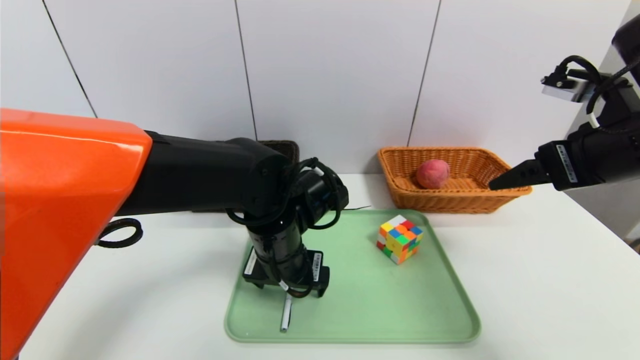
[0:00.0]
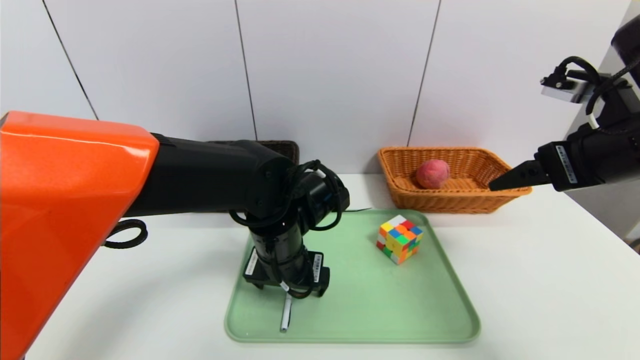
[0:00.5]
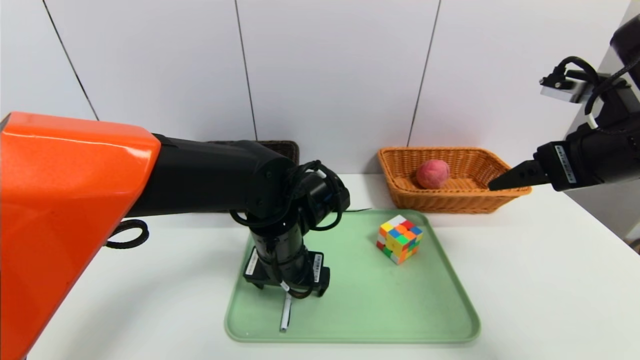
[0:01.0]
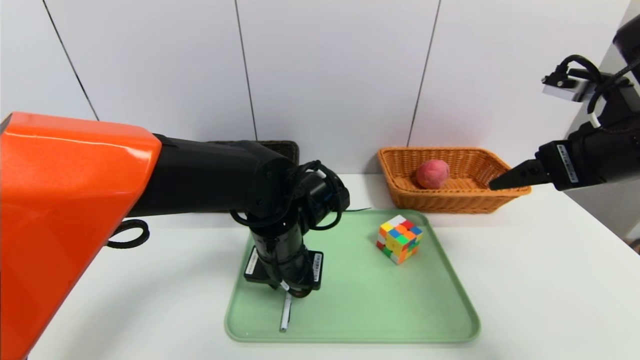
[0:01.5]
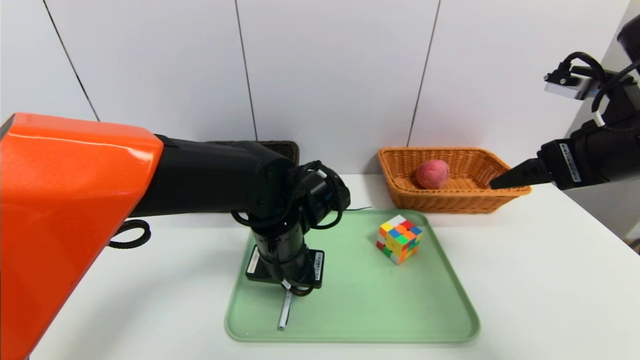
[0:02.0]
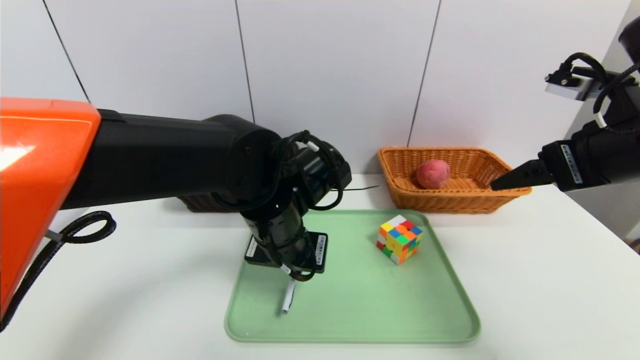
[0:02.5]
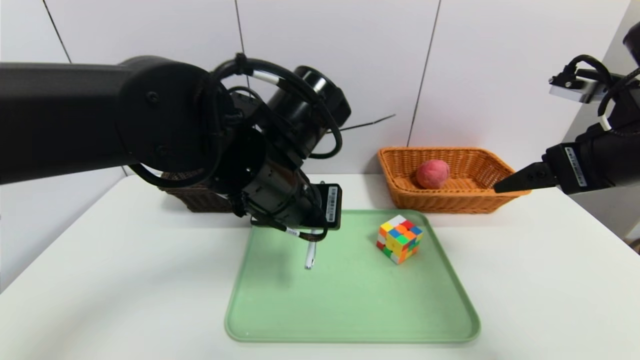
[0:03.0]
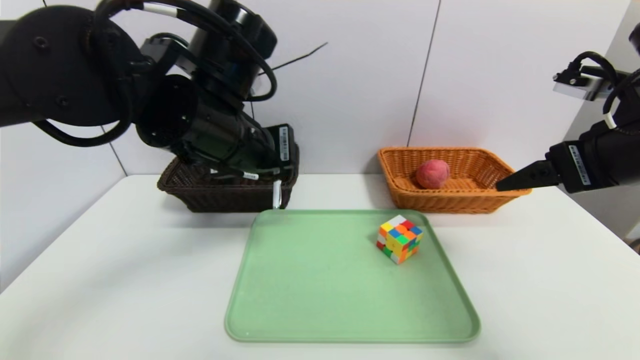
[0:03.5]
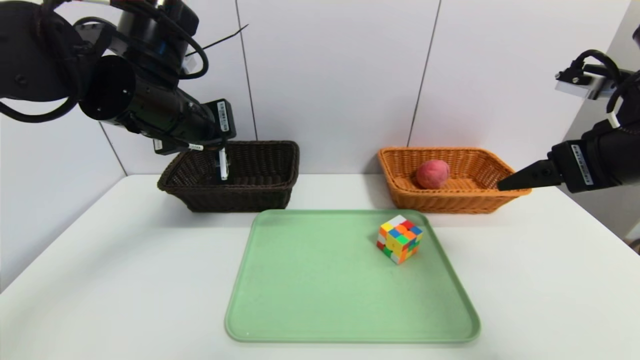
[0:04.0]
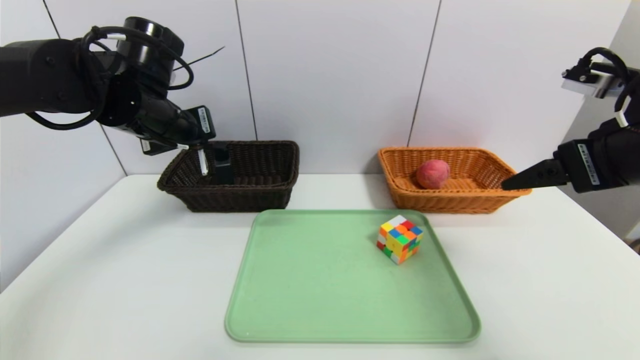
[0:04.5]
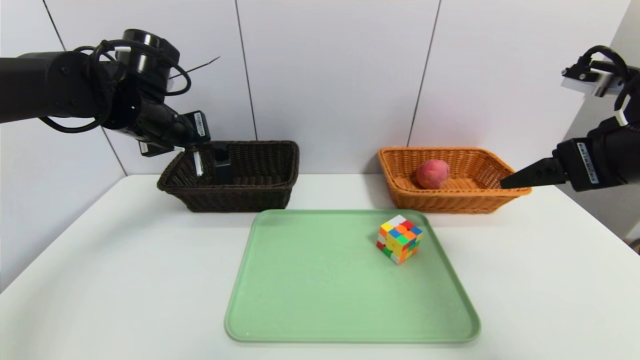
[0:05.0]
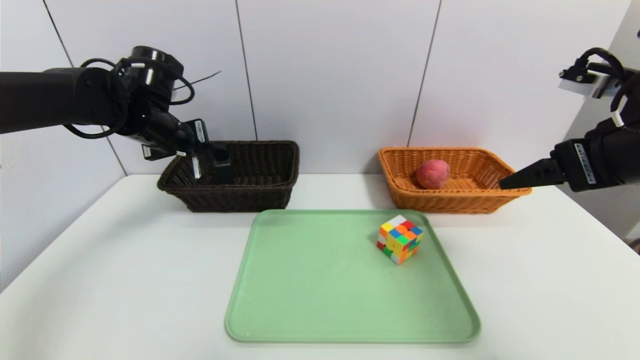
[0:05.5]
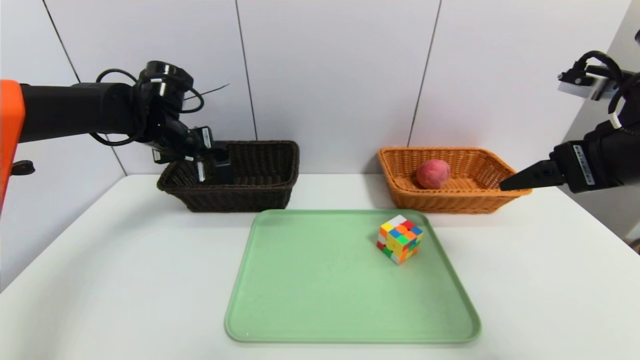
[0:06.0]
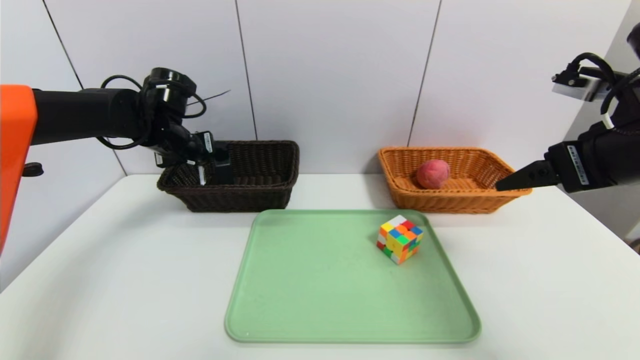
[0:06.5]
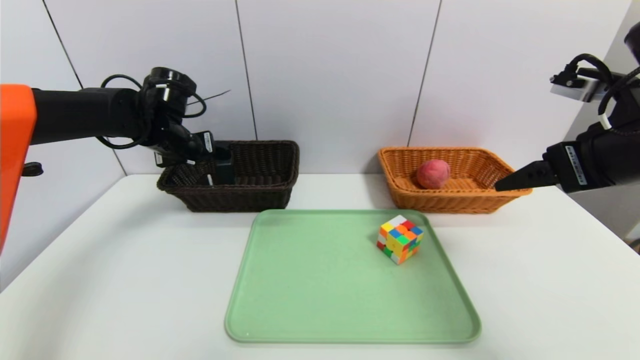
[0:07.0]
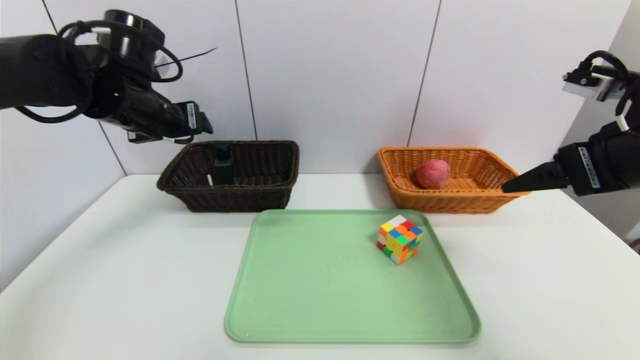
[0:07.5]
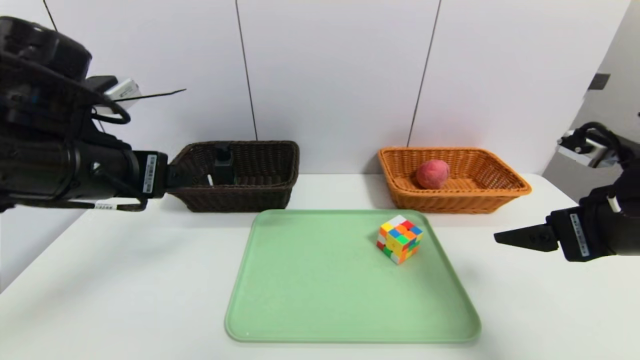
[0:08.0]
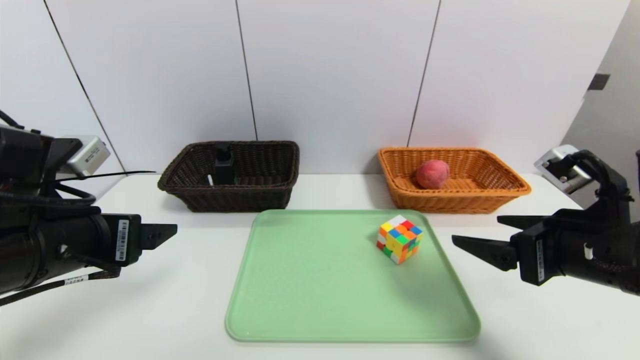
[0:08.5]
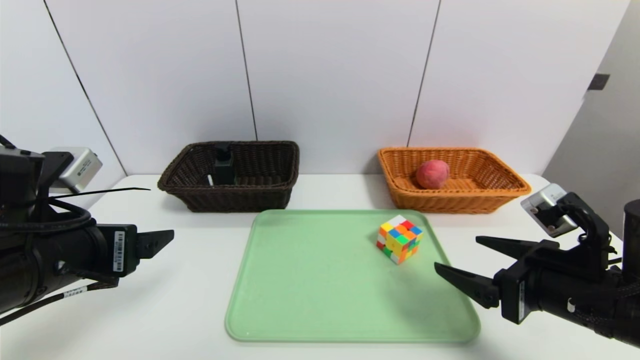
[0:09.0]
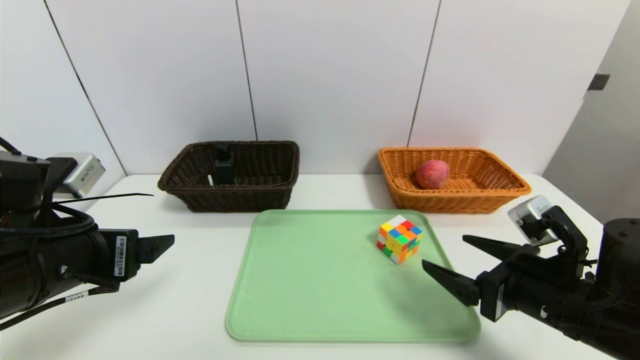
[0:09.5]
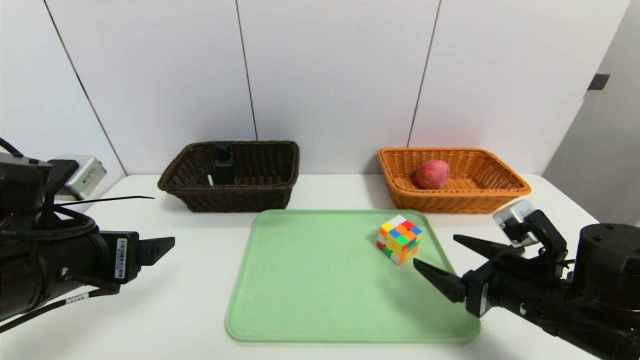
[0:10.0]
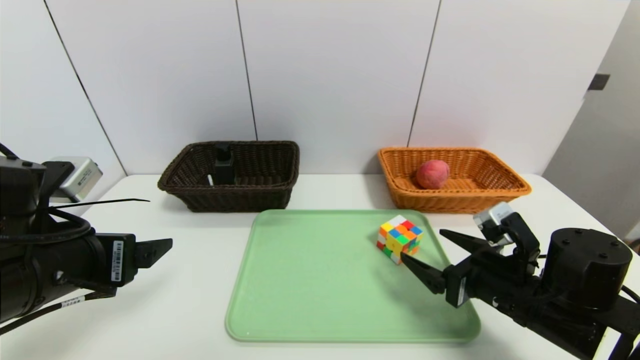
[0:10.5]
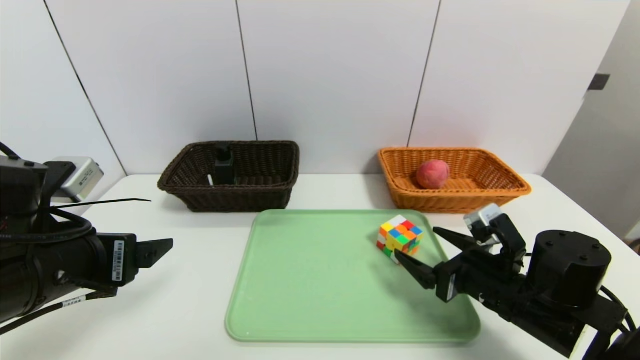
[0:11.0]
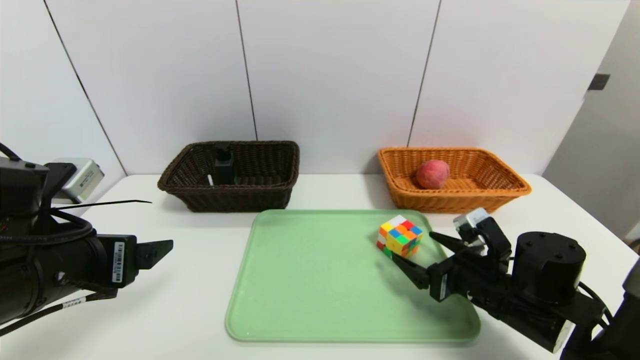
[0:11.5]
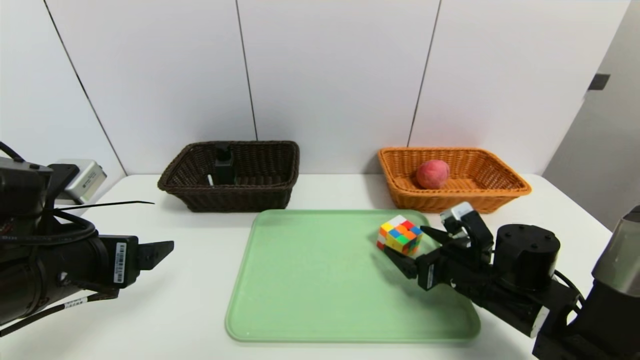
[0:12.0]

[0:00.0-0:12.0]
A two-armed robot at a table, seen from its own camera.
Task of the whole recording: place the food in the right basket with the right gripper, and place the non food items in the left basket with the left gripper.
Step, 0:00.0 to 0:07.0: Grasp the ballpoint pen and put it in the left basket.
0:00.0 to 0:02.0: The left gripper closes.
0:02.0 to 0:04.0: The left gripper shifts approximately 20 cm upward and to the left.
0:04.0 to 0:06.0: The left gripper shifts roughly 15 cm forward, downward and to the left.
0:06.0 to 0:08.0: The right gripper moves downward, some 5 cm, while the left gripper shifts roughly 20 cm backward, and opens its fingers.
0:08.0 to 0:10.0: The left gripper moves downward, approximately 5 cm. The right gripper heads downward and to the left, covering some 15 cm.
0:10.0 to 0:12.0: The right gripper shifts some 10 cm forward and downward.

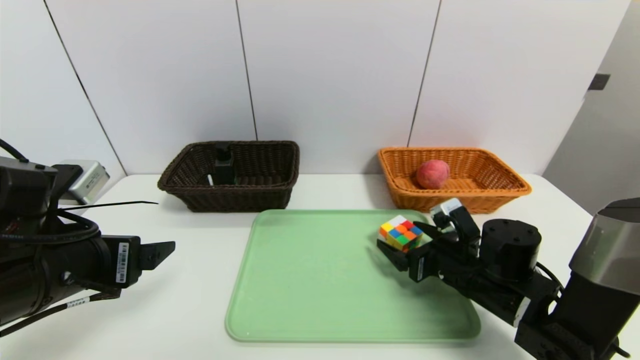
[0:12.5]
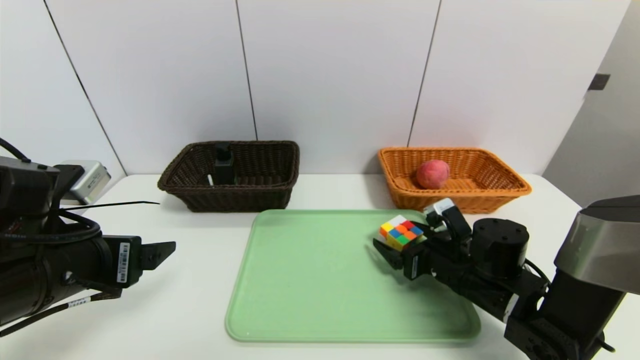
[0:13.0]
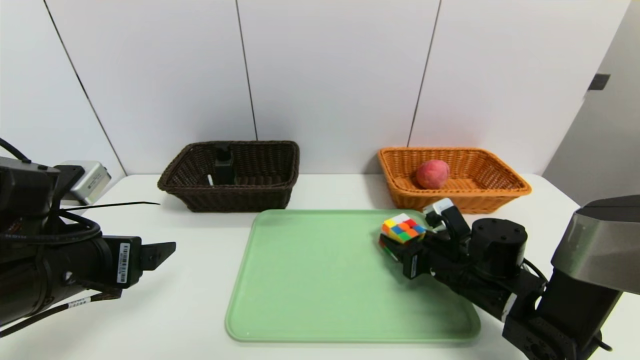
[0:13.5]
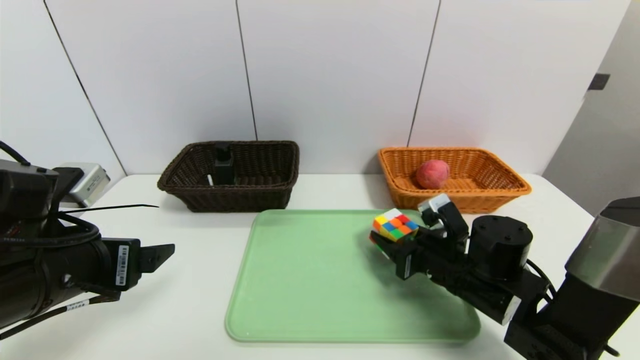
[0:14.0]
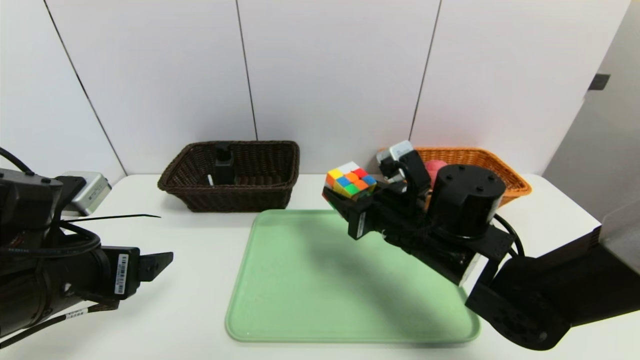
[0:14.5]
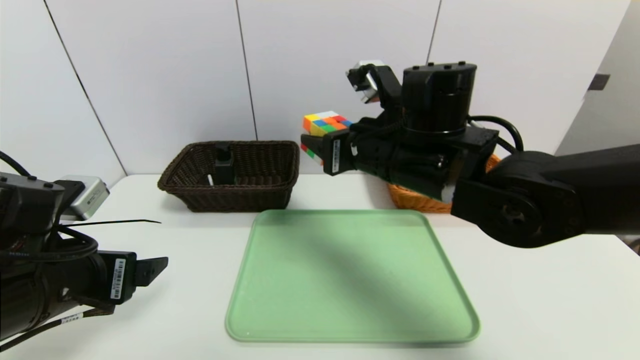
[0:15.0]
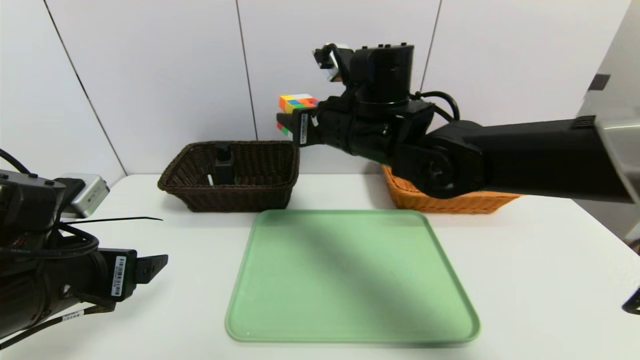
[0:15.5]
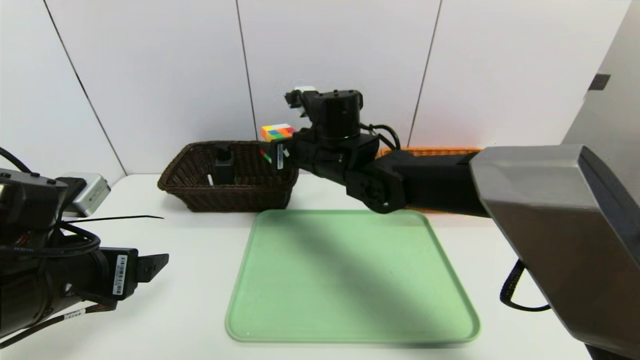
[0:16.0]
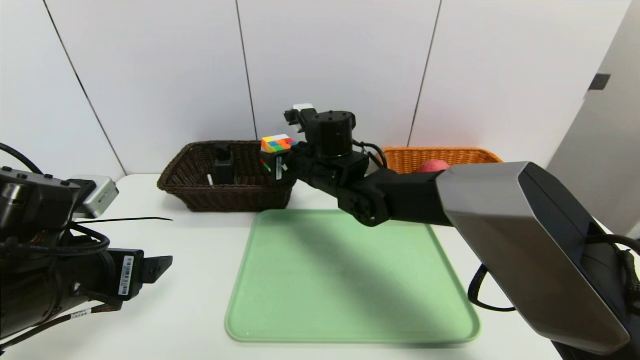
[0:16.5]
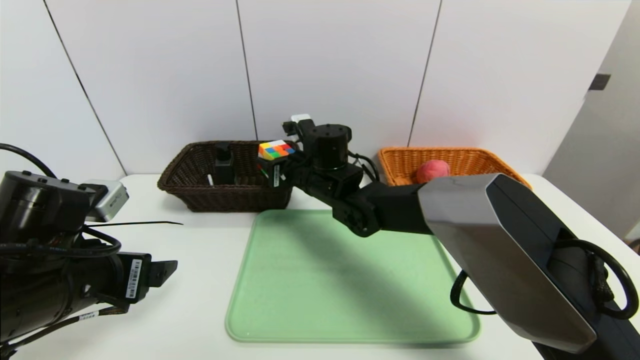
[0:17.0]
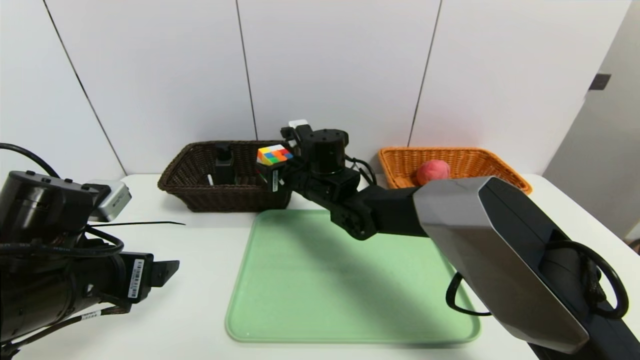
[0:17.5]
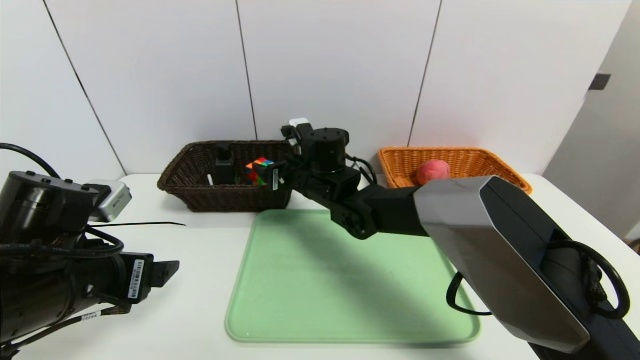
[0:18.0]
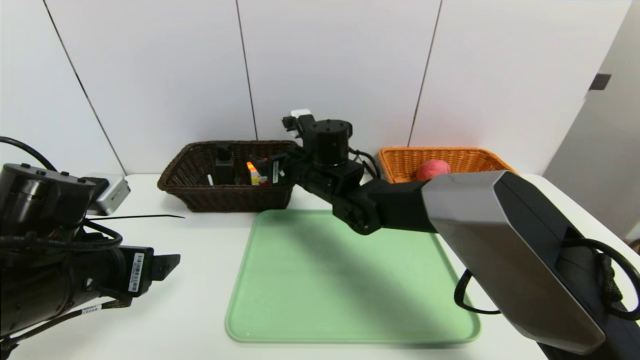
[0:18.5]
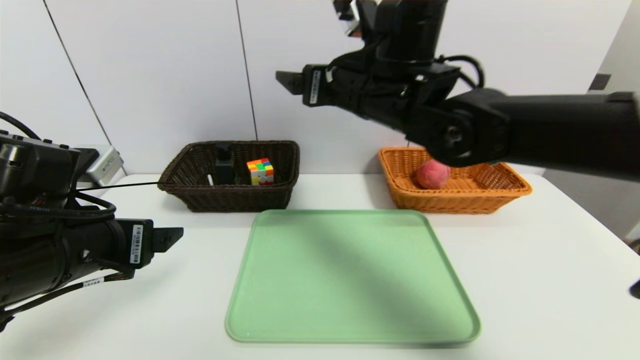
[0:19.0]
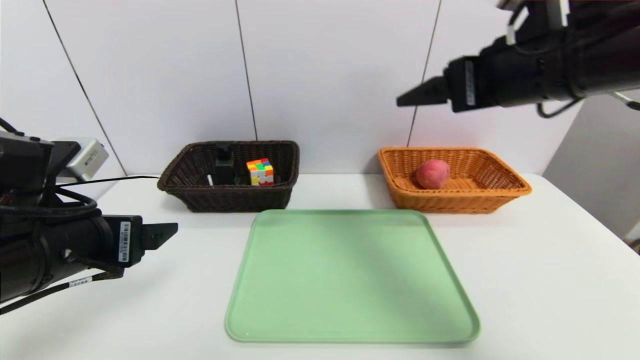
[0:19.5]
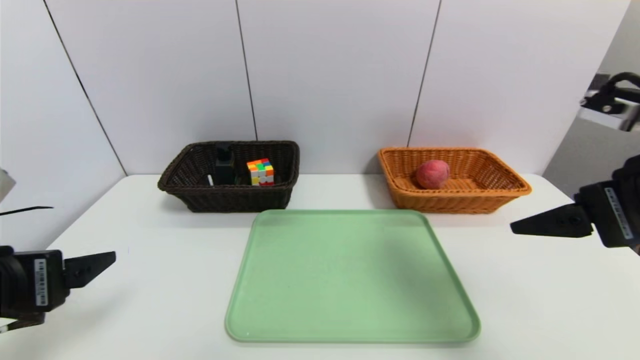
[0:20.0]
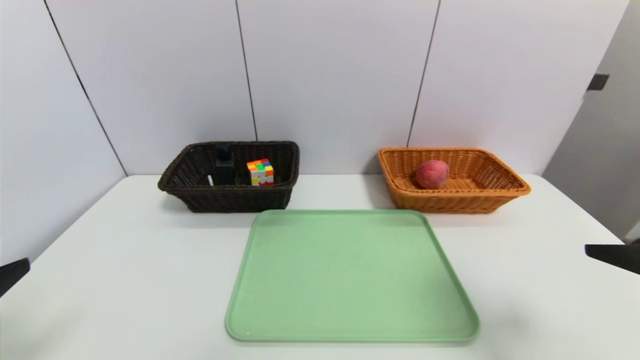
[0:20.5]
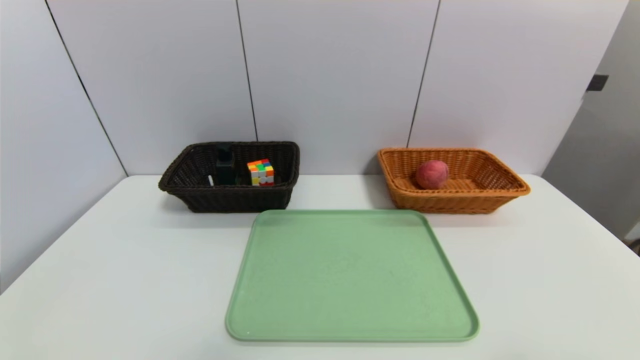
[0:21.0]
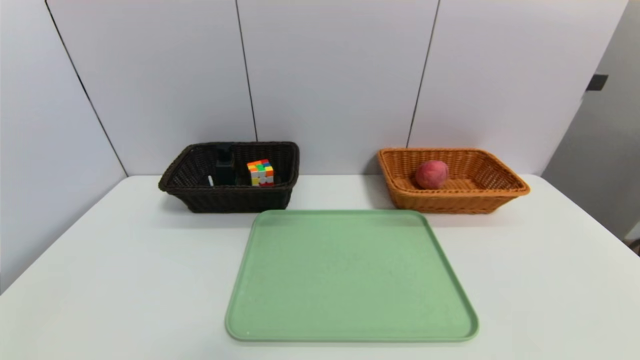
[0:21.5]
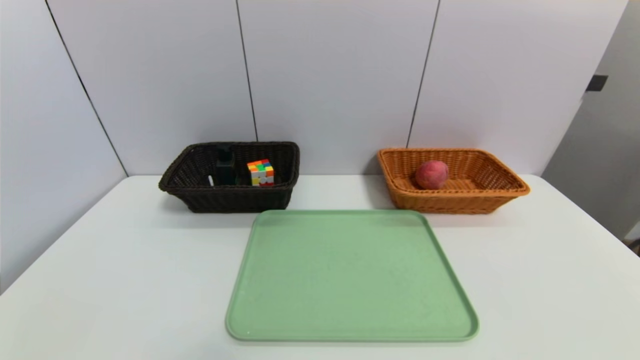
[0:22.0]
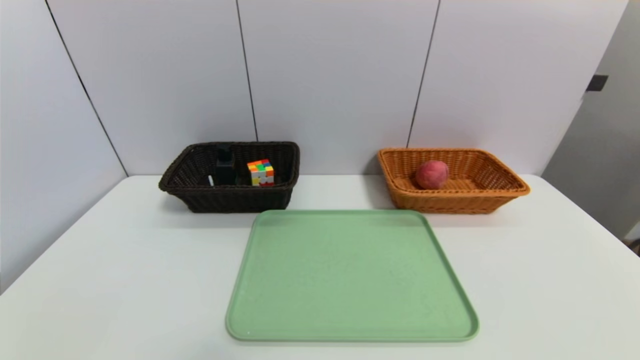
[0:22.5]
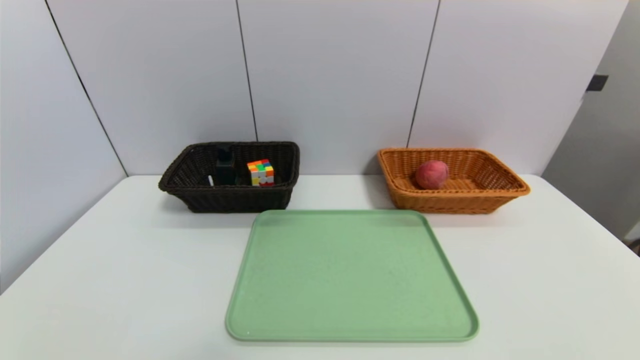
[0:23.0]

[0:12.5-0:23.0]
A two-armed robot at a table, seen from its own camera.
Task of the whole recording: place the food in the right basket with the right gripper, and place the non food items in the left basket with the left gripper.
0:12.5 to 0:14.5: The right gripper shifts approximately 15 cm to the left and upward, and closes its fingers.
0:14.5 to 0:16.5: The right gripper shifts some 15 cm forward and to the left.
0:16.5 to 0:19.0: The right gripper goes about 15 cm upward and to the right, and opens its fingers.
0:19.0 to 0:21.0: The left gripper heads backward, covering some 20 cm. Meanwhile the right gripper is displaced backward and to the right by about 40 cm.
